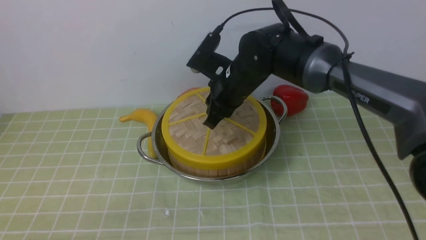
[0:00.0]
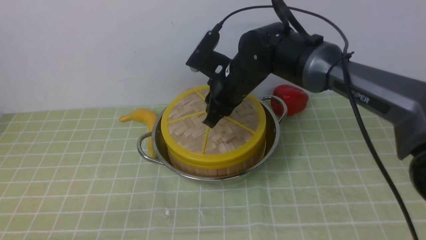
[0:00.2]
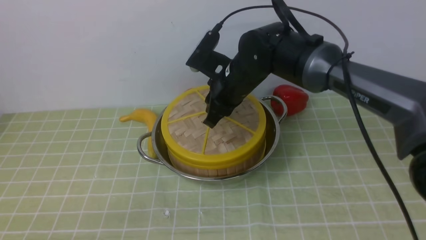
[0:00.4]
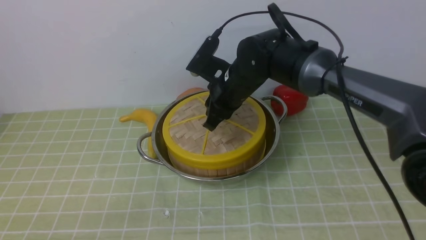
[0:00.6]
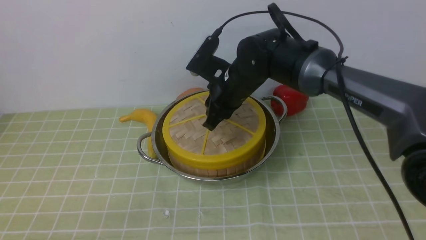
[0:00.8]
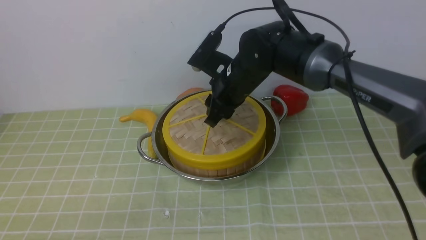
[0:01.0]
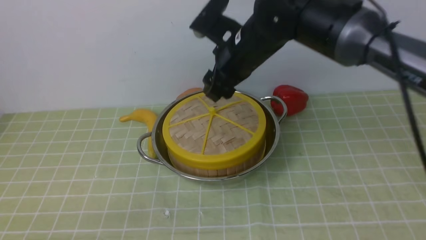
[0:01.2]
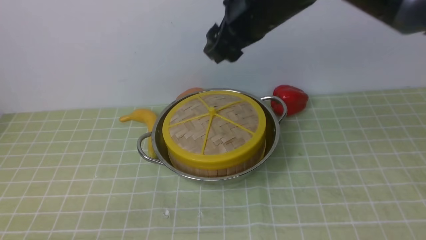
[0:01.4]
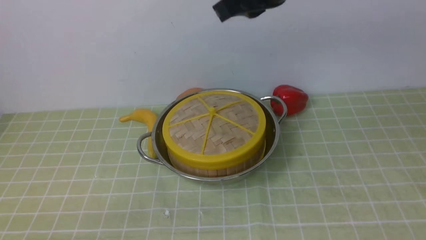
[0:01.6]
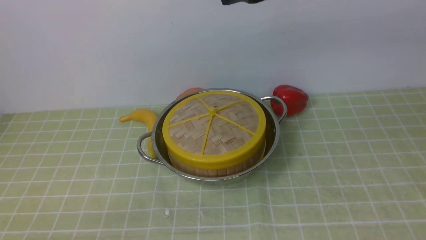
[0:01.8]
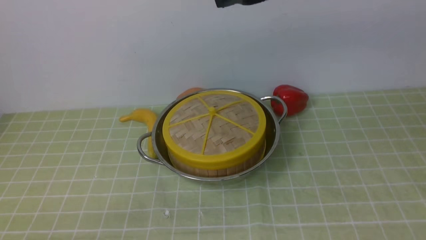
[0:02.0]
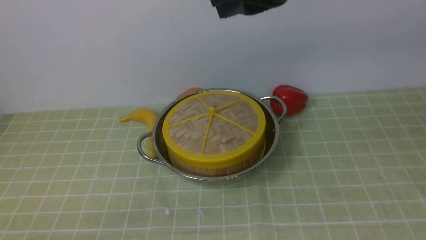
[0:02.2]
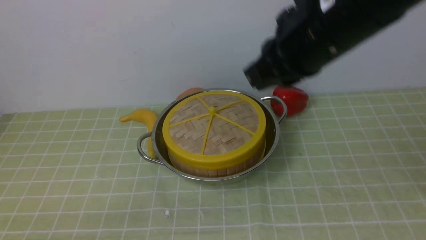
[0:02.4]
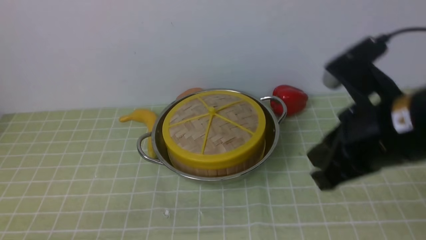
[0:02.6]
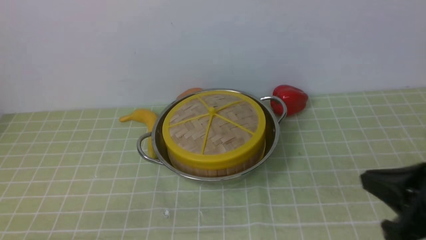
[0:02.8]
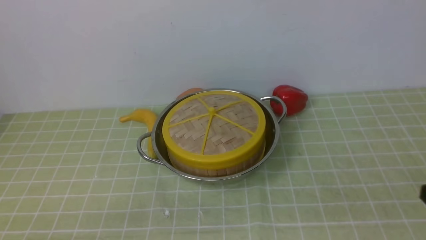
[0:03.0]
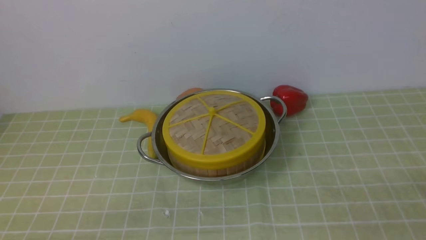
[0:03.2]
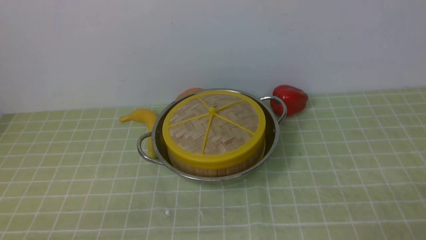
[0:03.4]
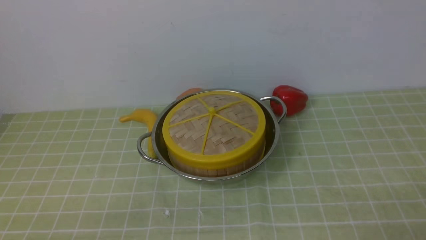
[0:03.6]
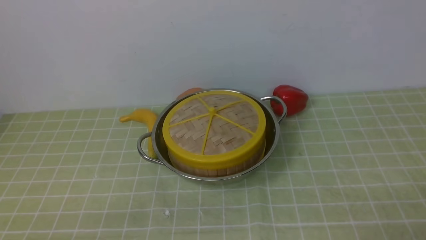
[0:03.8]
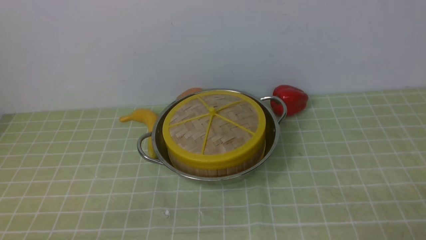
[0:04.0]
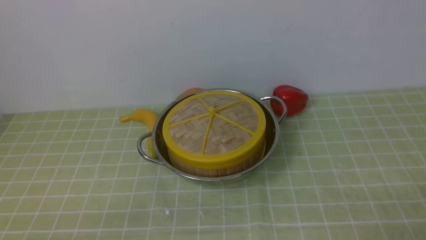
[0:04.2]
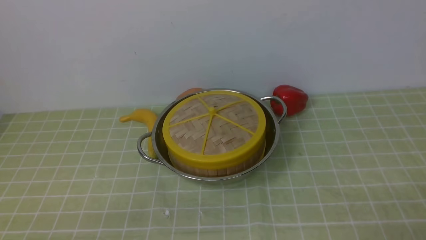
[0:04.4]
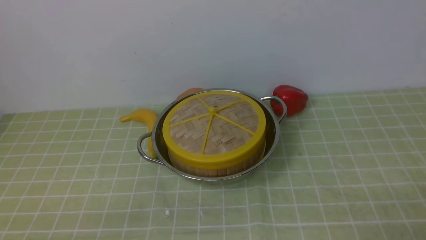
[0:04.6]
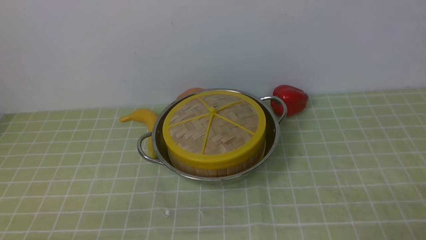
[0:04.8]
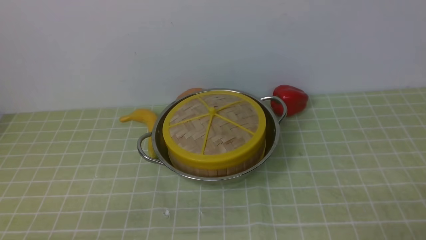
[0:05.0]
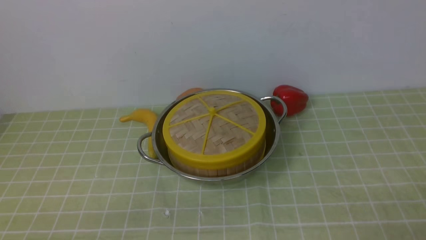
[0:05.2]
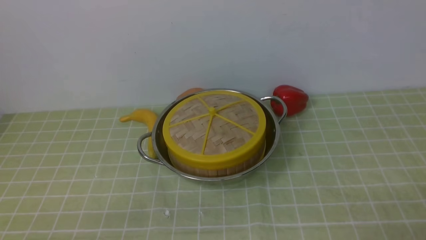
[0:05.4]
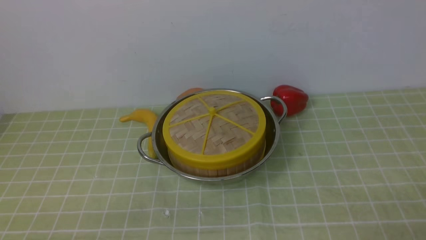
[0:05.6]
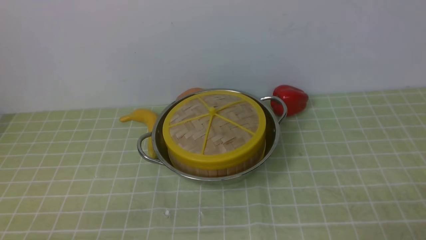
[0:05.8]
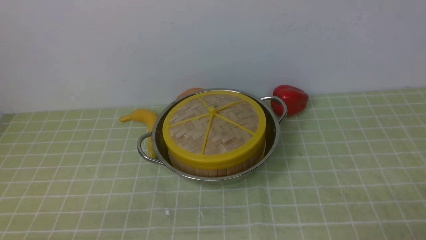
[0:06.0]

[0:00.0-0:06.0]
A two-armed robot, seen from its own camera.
Task of the whole recording: place the steamer in the pot on the green tablecloth, and put the lid on the steamer.
0:00.0 to 0:01.6: The right gripper heads upward and backward, covering some 20 cm, and opens and closes again.
0:01.6 to 0:03.0: The right gripper heads backward, to the right and downward, covering about 35 cm.
0:04.4 to 0:06.0: Both grippers stay put.

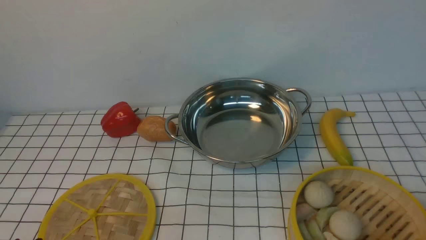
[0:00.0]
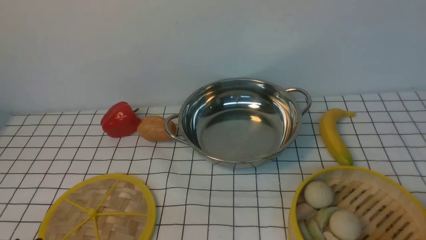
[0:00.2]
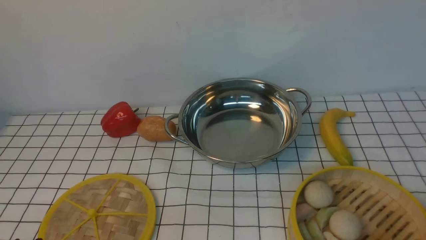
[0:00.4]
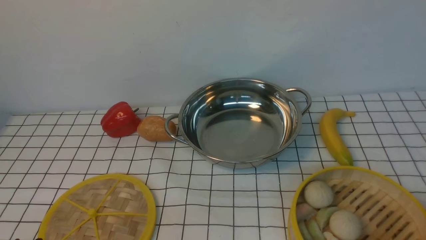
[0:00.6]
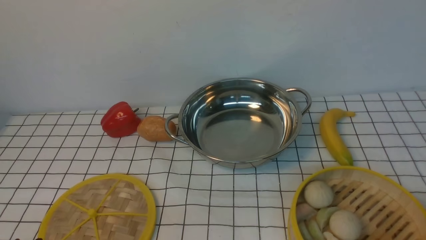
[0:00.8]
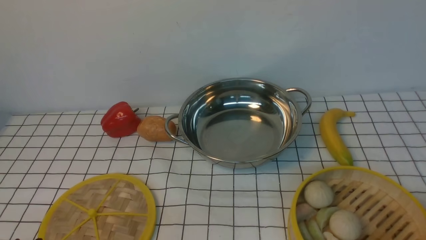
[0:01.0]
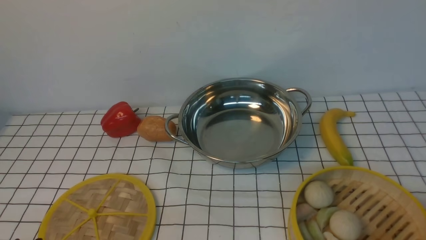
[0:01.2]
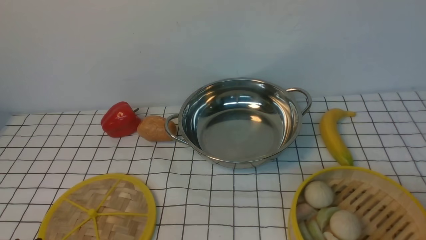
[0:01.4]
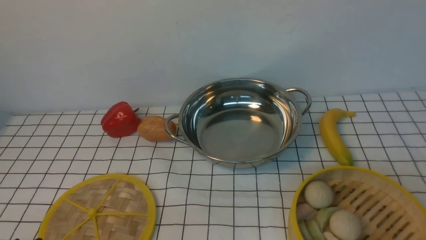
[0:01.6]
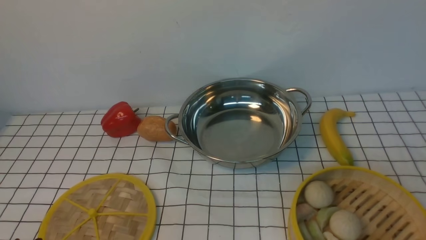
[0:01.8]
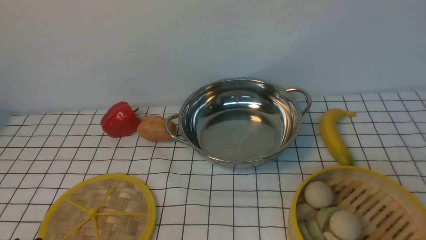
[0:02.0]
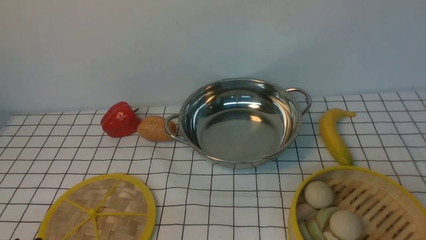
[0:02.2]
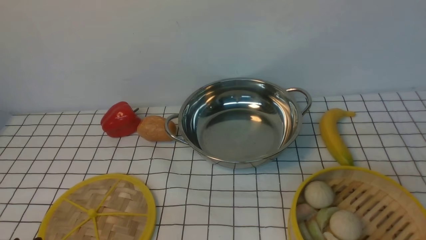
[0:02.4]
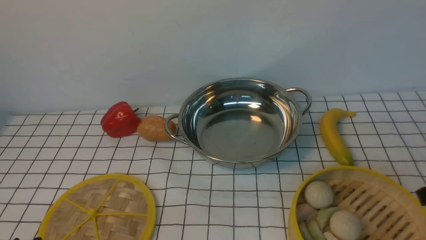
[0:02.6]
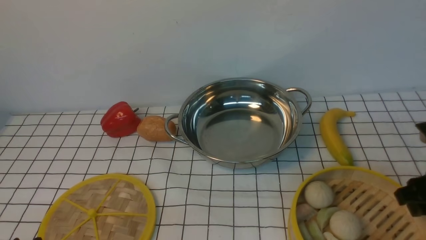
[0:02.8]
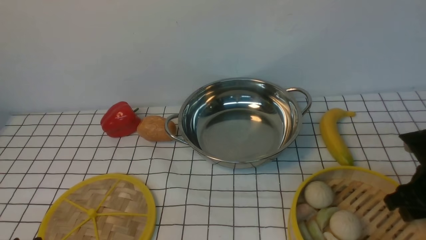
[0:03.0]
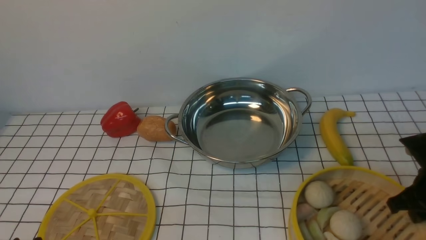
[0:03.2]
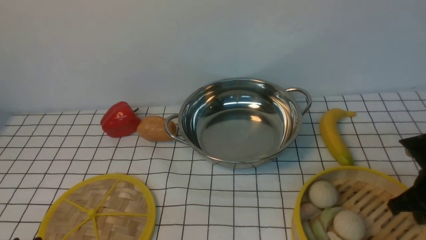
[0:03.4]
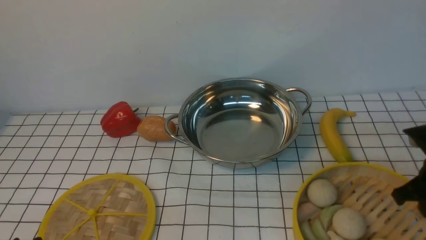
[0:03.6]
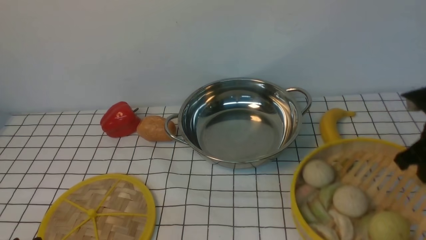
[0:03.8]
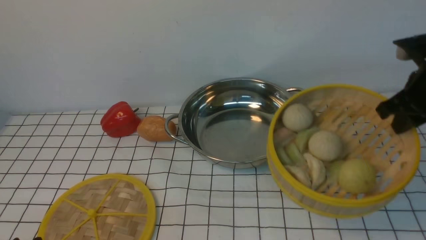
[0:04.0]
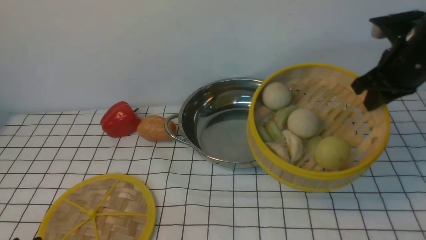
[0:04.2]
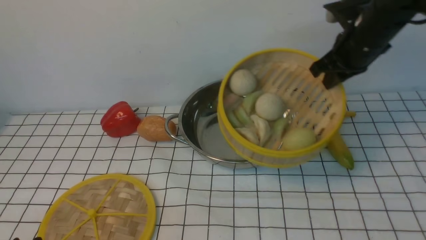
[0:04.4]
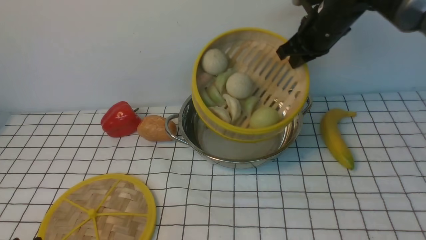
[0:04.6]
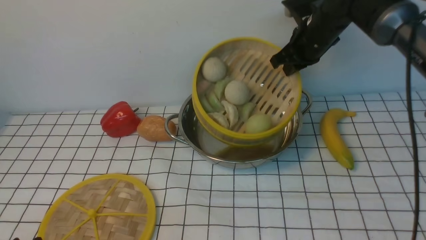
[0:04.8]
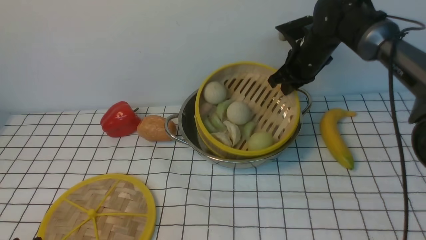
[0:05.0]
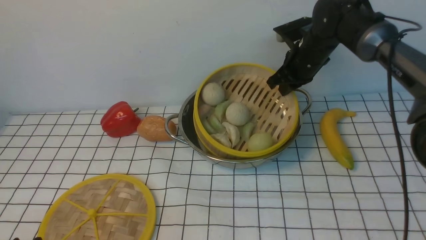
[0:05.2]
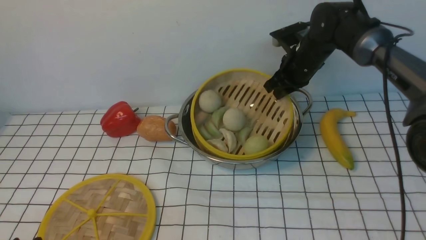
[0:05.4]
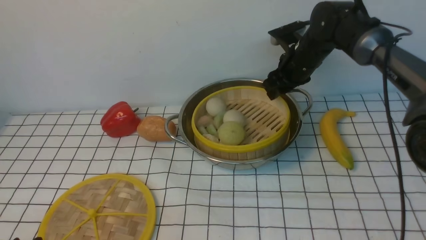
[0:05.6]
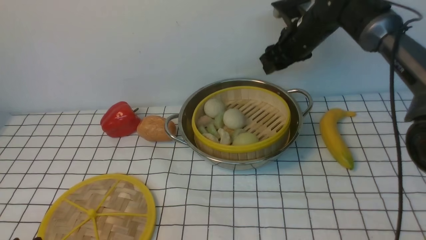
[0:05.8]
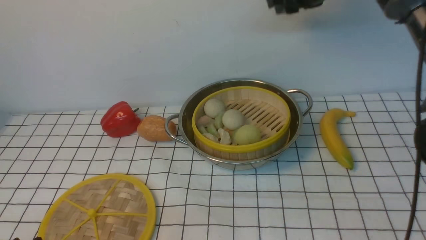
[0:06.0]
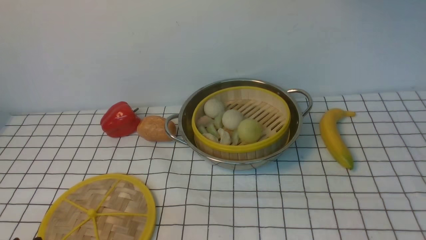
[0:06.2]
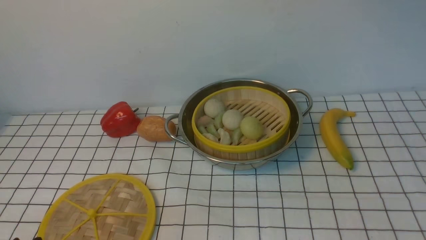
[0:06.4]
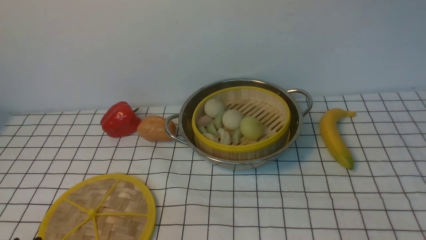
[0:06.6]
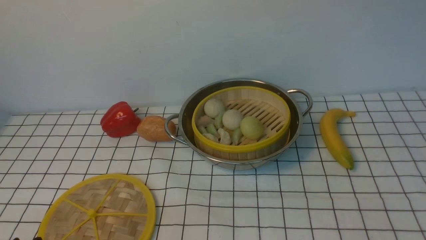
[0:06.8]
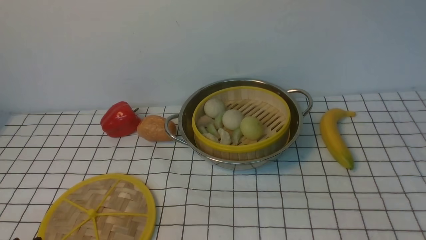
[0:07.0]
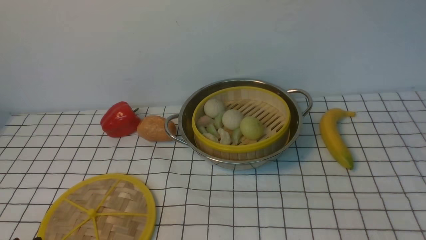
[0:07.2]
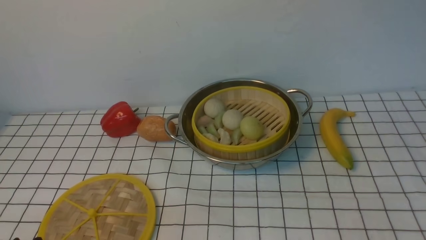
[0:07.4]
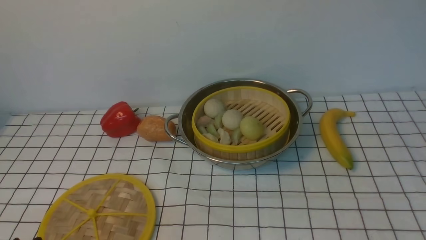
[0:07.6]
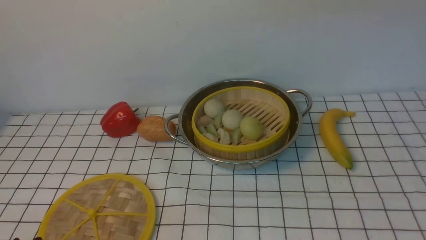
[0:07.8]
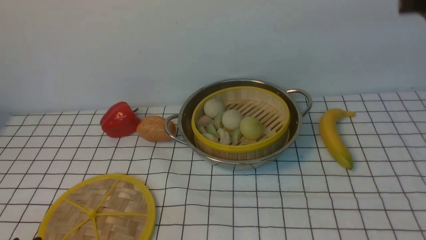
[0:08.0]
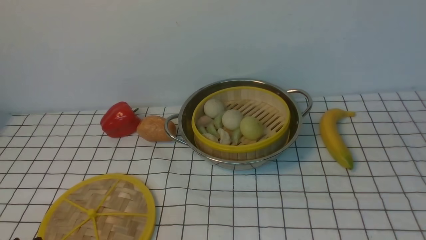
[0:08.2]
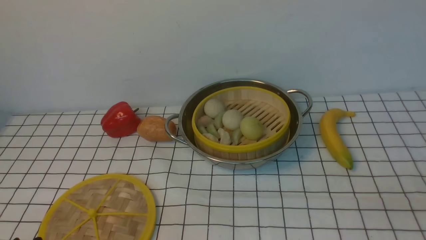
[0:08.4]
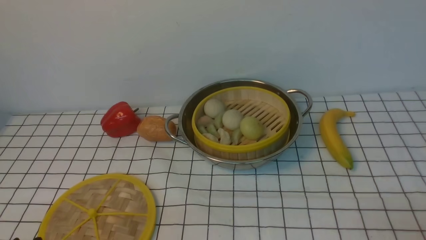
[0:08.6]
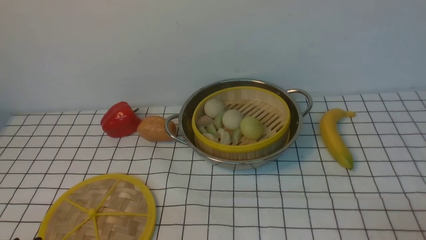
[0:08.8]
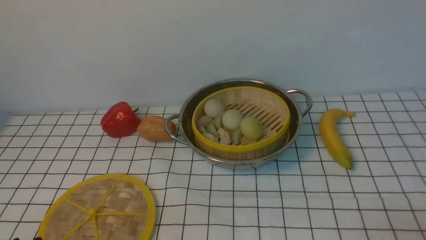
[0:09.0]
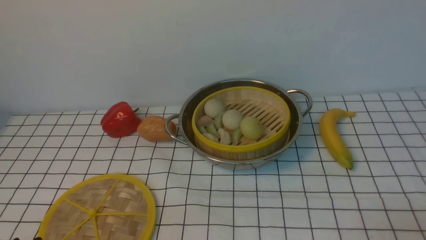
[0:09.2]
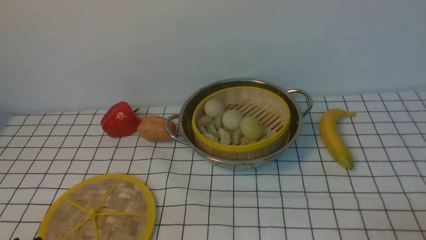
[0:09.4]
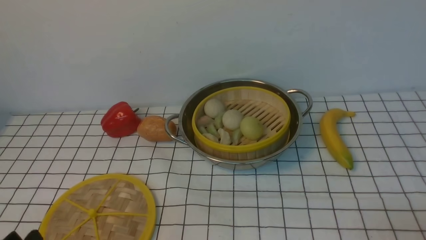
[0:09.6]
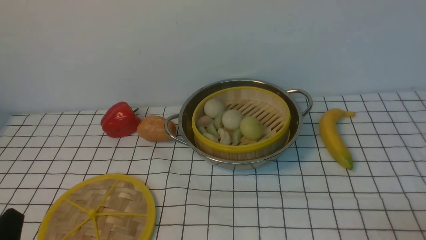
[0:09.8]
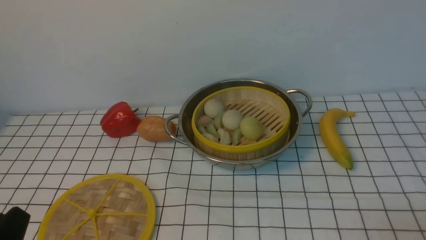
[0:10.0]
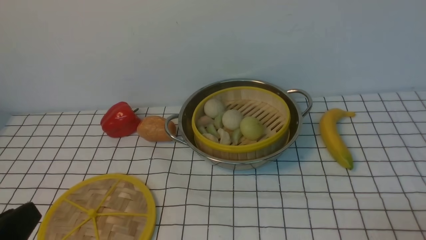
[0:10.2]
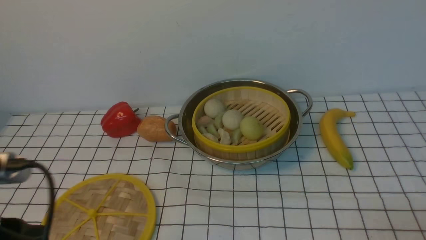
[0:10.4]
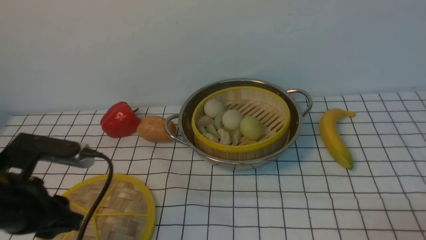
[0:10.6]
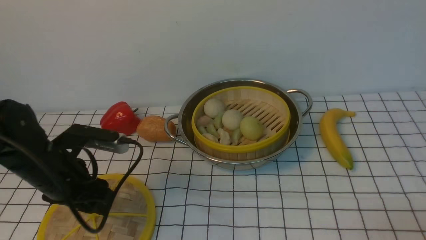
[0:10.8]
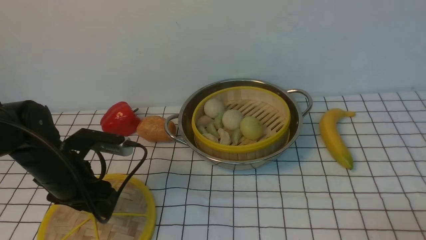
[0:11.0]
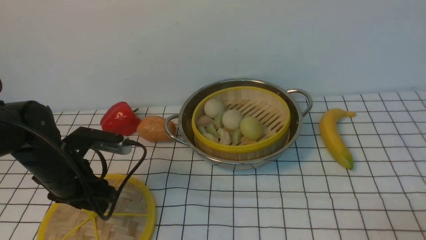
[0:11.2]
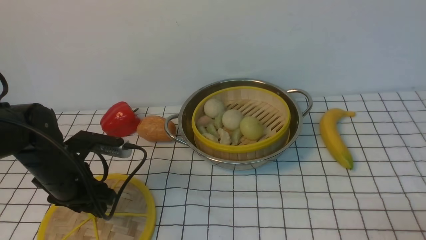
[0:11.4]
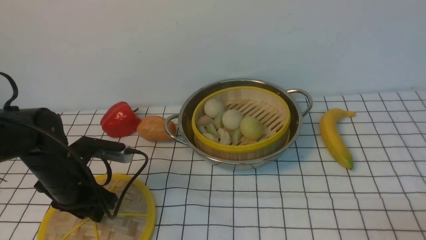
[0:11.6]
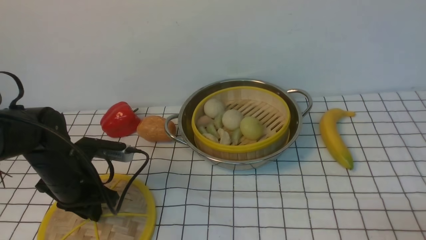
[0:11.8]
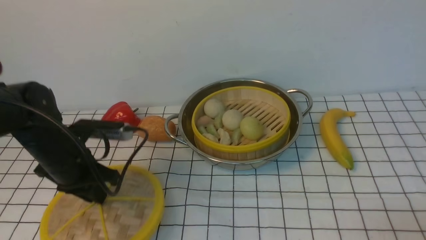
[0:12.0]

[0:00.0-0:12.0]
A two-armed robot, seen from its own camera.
Task of the whole recording: place the steamer in the pot on the white tablecloth, and put the lid on the steamer.
Step, 0:00.0 to 0:03.8: use the right arm to lift the steamer closest to it.
Step, 0:04.0 to 0:05.6: use the right arm to put the steamer into the iron steamer pot in the middle.
Step, 0:05.8 to 0:12.0: use the left arm to lift the lid of the steamer.
0:01.6 to 0:03.0: The right gripper goes approximately 25 cm forward and downward.
0:03.0 to 0:04.4: The right gripper is displaced forward, upward and to the left by roughly 25 cm, and closes.
0:04.4 to 0:06.0: The right gripper moves upward and forward, some 10 cm, and opens up.
0:06.0 to 0:07.6: The right gripper moves upward and backward, some 20 cm, and closes its fingers.
0:09.0 to 0:10.4: The left gripper shifts approximately 15 cm upward and forward.
0:10.4 to 0:12.0: The left gripper shifts approximately 20 cm forward, and closes up.
